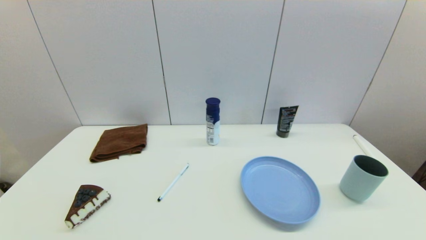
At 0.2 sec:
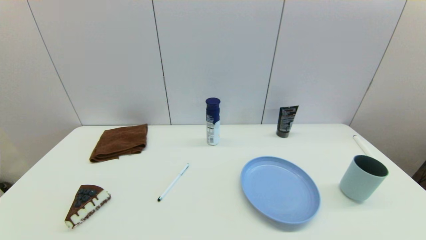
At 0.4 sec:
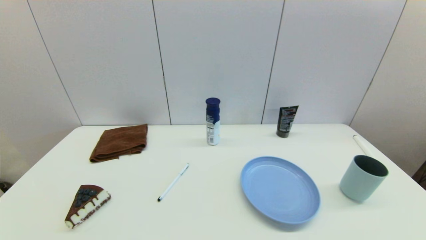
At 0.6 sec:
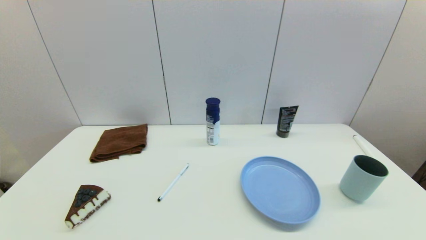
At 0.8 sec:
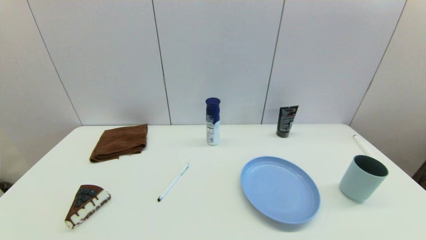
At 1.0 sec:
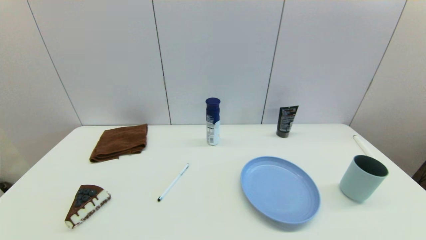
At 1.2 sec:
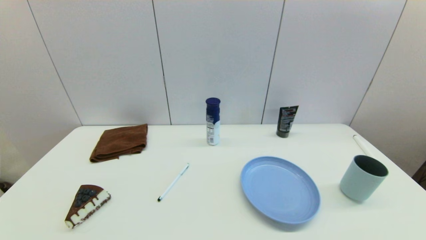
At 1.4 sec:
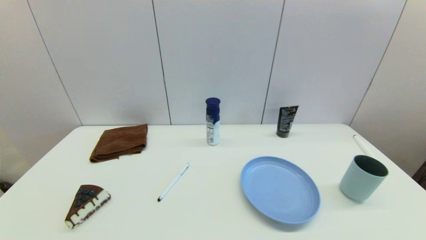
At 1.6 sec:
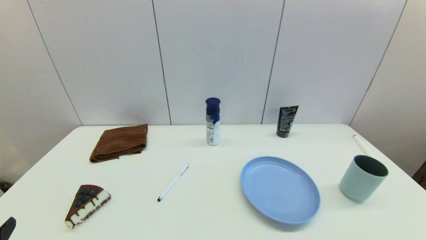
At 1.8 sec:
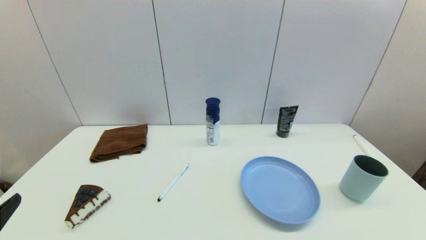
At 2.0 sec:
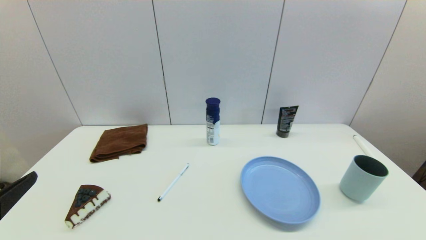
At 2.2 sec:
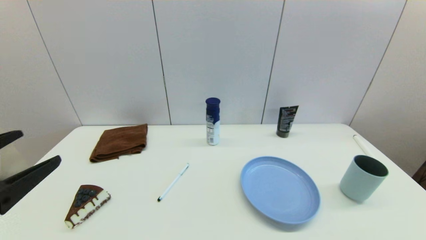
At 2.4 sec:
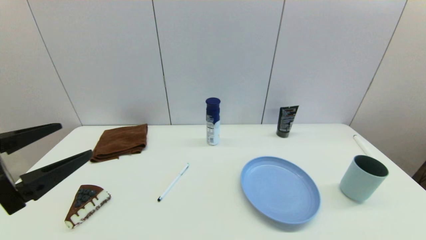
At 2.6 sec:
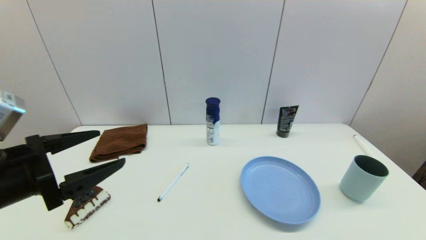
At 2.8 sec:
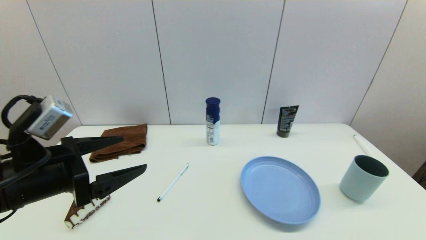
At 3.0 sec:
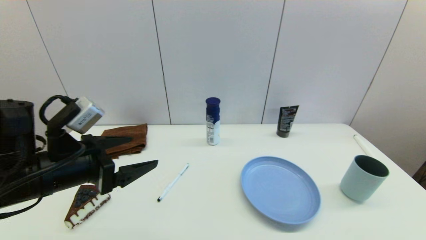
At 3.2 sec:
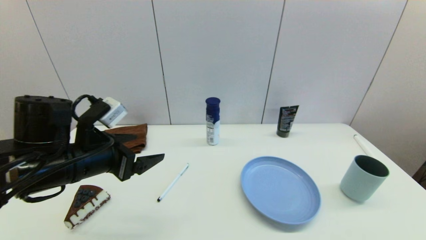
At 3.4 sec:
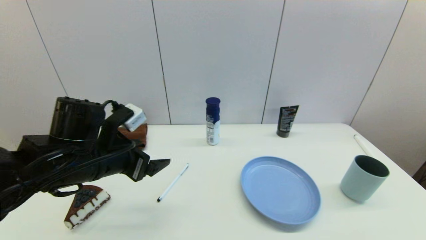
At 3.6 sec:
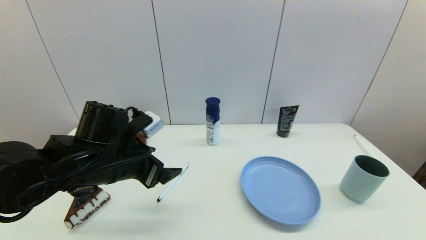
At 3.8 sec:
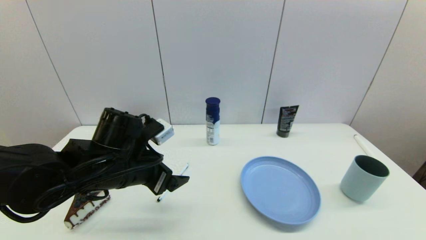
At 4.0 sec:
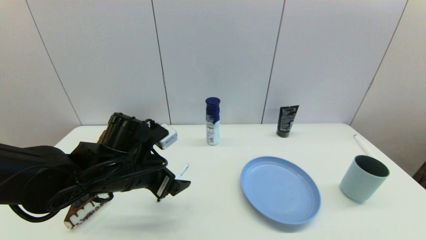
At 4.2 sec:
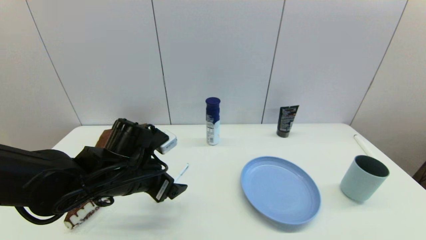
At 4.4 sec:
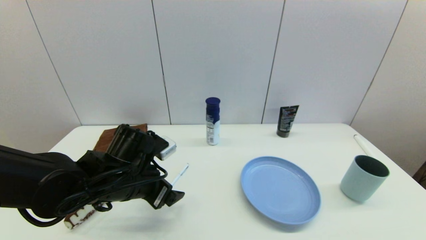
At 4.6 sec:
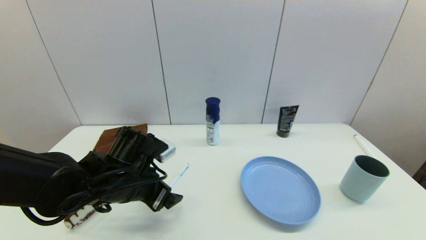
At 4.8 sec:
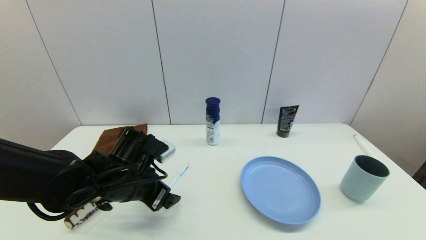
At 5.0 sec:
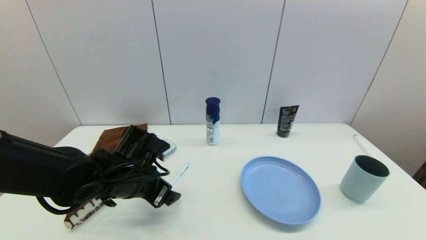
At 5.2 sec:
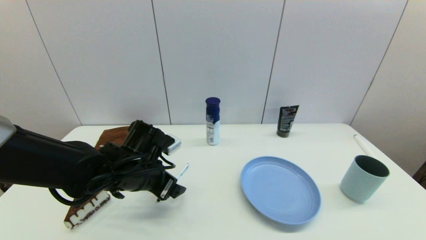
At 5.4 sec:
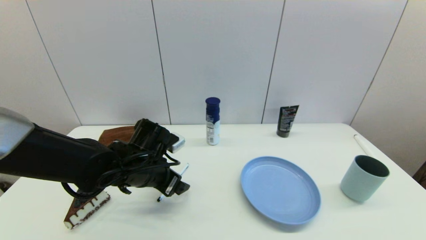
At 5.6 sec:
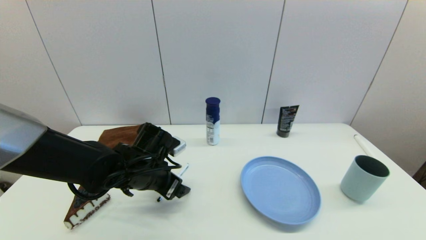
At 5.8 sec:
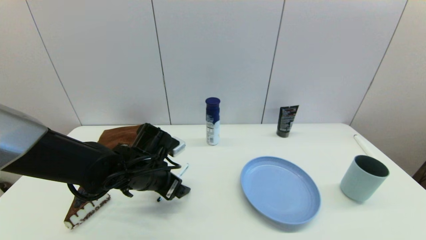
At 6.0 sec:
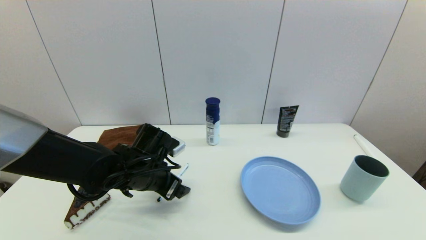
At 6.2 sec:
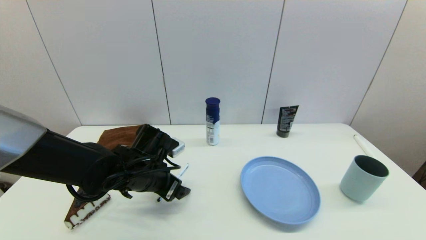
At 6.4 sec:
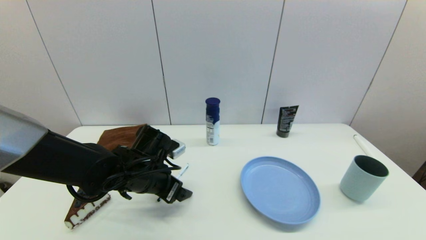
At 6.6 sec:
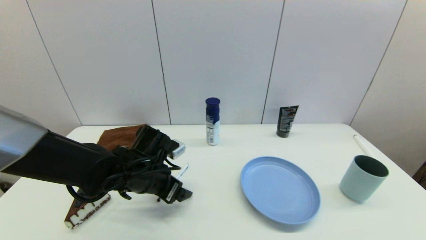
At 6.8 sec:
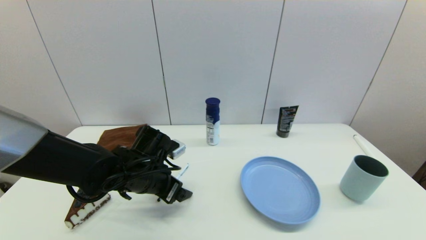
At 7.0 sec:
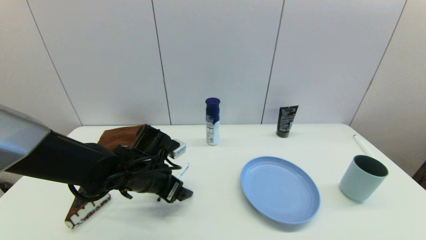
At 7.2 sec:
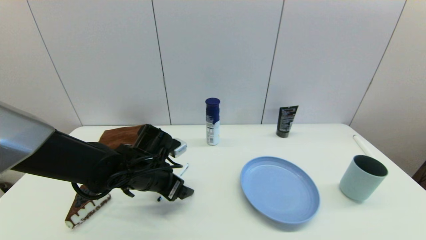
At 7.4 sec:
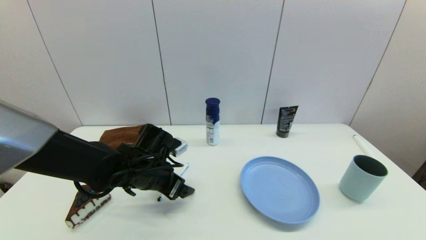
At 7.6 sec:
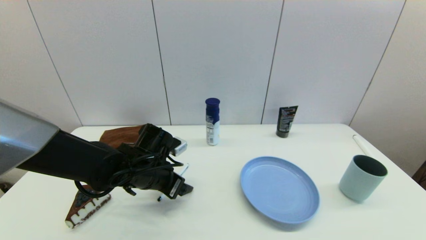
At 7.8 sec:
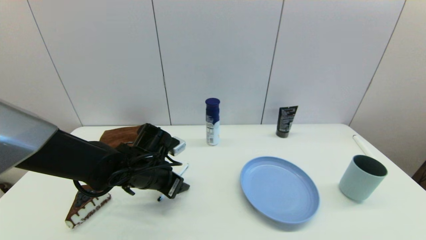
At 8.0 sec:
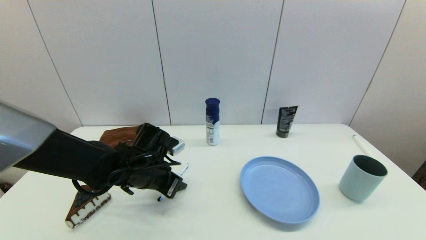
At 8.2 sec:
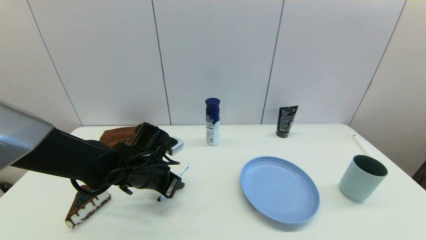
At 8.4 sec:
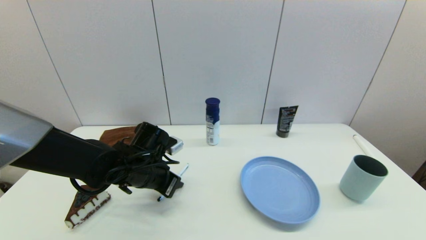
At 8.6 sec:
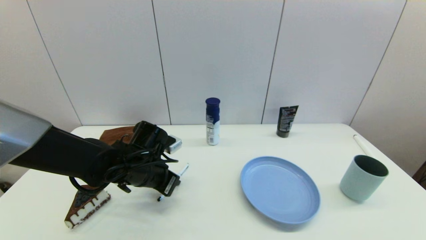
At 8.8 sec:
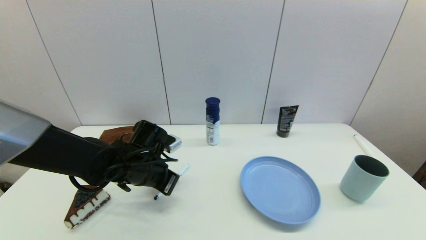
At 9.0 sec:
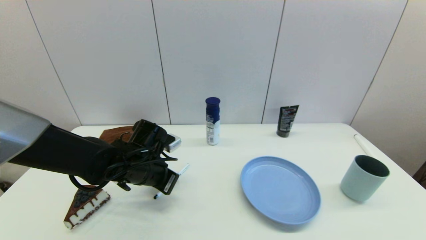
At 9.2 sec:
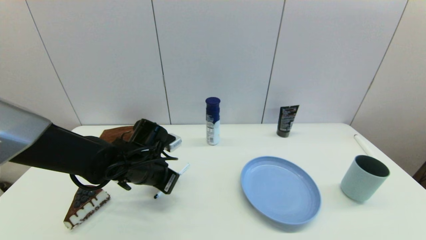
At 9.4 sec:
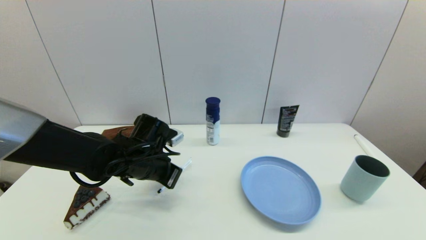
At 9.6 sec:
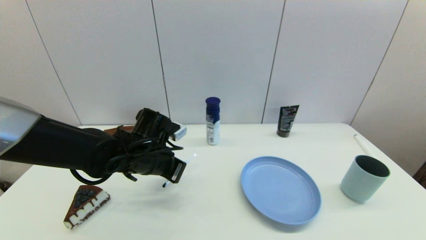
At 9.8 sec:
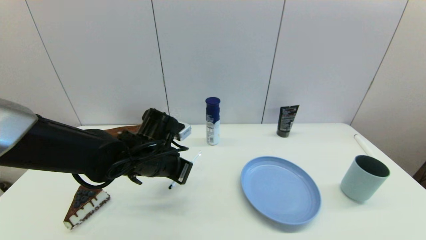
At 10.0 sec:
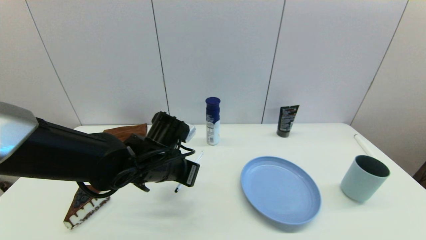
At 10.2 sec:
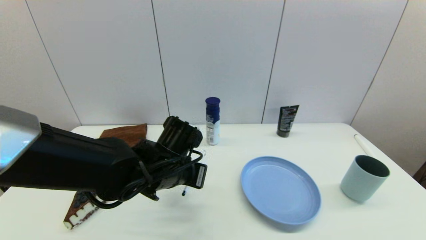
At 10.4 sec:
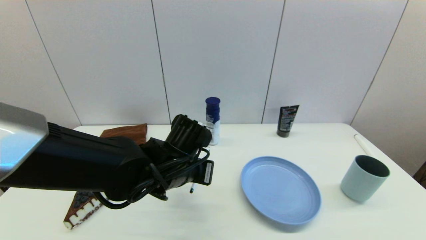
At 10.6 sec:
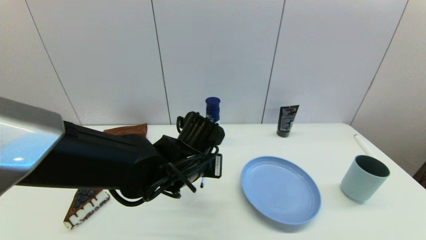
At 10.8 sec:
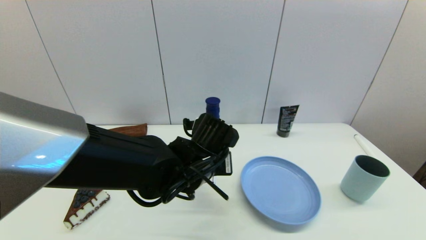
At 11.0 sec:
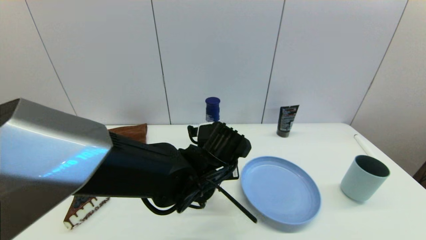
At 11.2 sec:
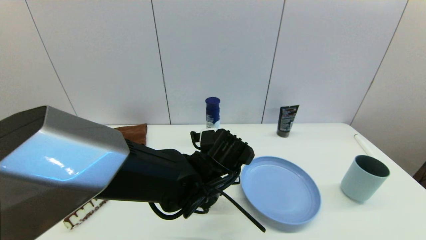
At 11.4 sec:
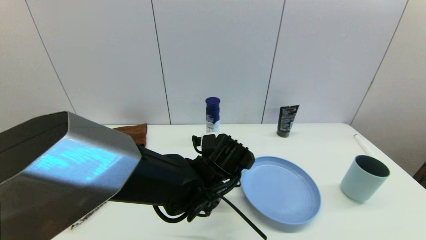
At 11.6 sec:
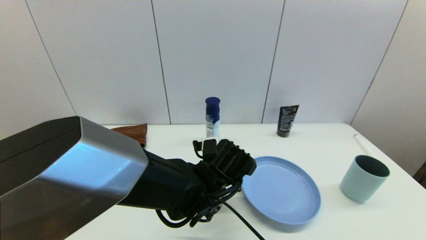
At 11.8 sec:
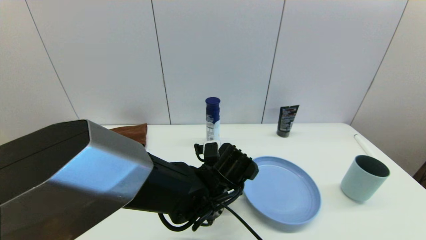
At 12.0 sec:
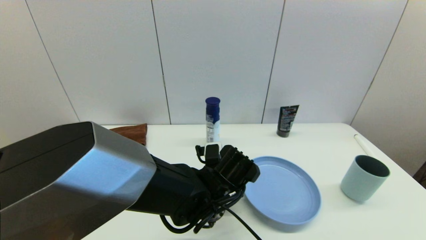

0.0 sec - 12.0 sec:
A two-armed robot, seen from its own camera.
Task of the whole recording: put the pen in the designated position.
Step, 1.6 sec - 8.8 sec: Grasp the sign pen with left gripper.
1.6 sec - 3.0 sec: The left gripper is displaced forward and to the right by some 20 cm.
3.0 sec - 4.4 sec: The left gripper goes roughly 10 cm downward and to the right.
4.4 sec - 6.0 sec: The left gripper shifts by approximately 5 cm.
6.0 sec - 7.6 sec: The grippers stay close to where they were, moving slightly.
7.6 sec - 9.0 sec: The left gripper closes.
9.0 sec - 10.4 sec: The left gripper is displaced to the right by some 10 cm.
10.4 sec - 12.0 sec: The left gripper shifts some 10 cm to the right and downward.

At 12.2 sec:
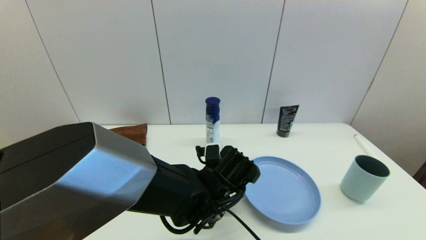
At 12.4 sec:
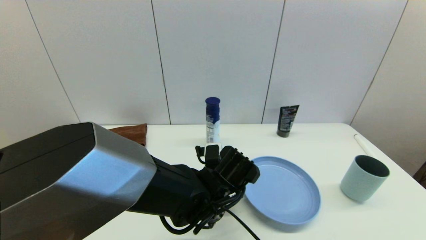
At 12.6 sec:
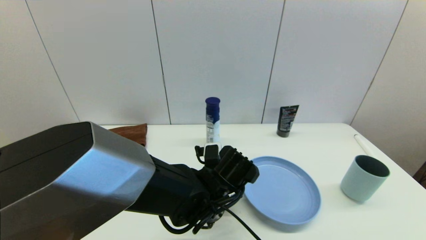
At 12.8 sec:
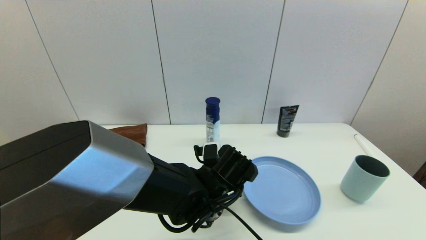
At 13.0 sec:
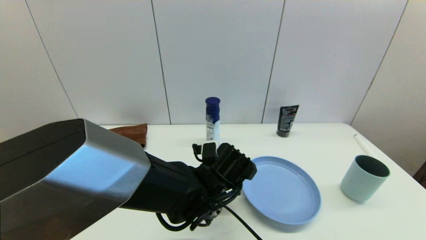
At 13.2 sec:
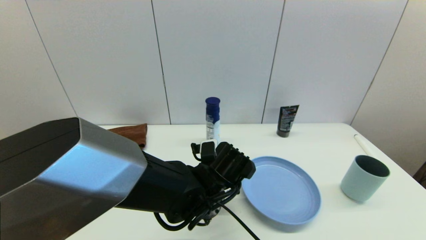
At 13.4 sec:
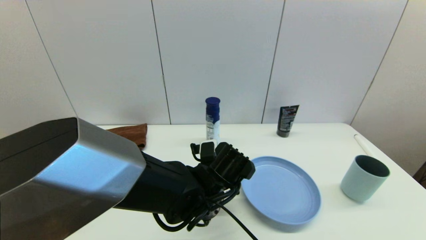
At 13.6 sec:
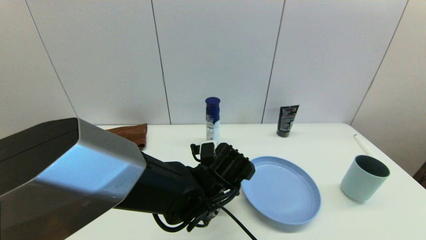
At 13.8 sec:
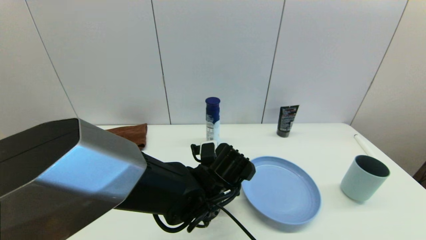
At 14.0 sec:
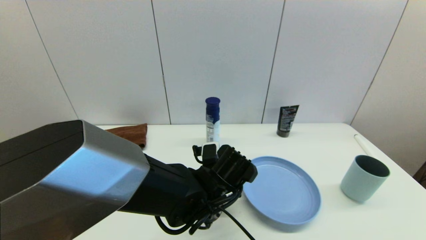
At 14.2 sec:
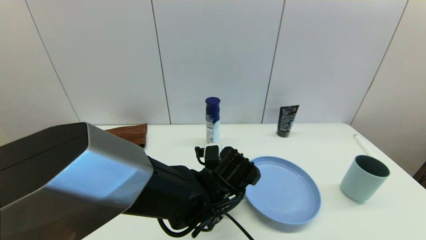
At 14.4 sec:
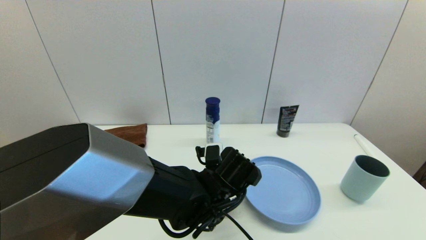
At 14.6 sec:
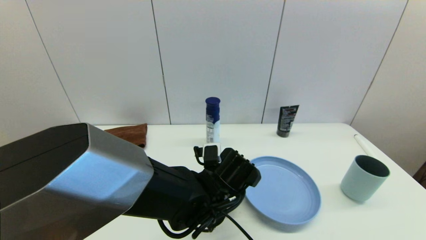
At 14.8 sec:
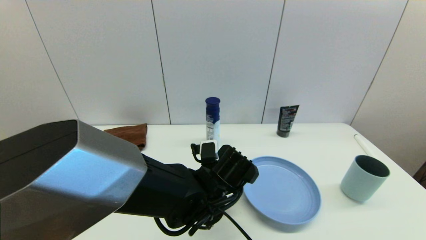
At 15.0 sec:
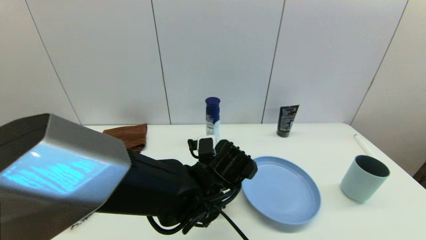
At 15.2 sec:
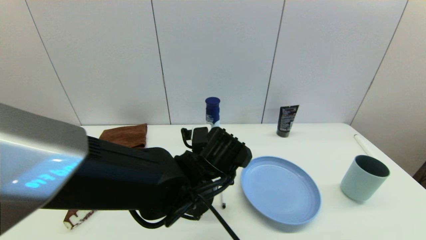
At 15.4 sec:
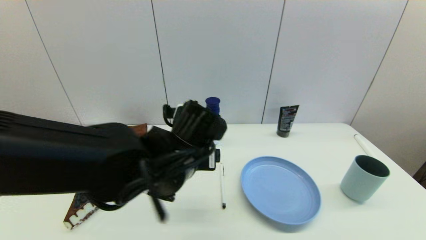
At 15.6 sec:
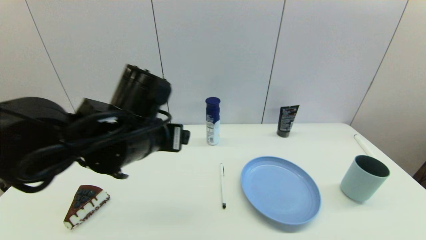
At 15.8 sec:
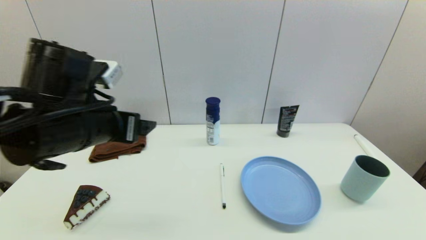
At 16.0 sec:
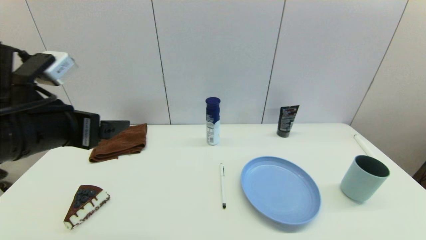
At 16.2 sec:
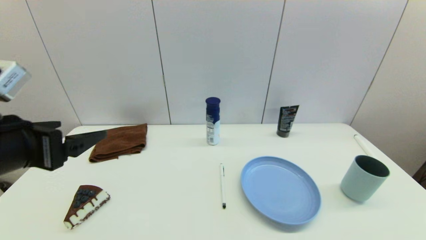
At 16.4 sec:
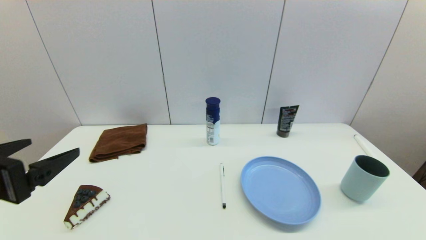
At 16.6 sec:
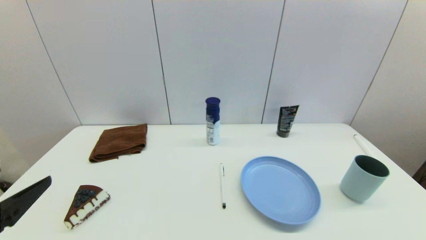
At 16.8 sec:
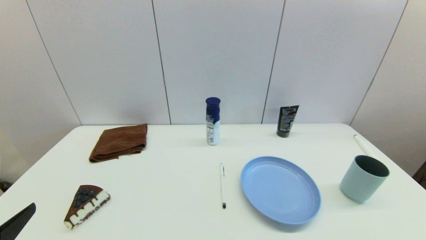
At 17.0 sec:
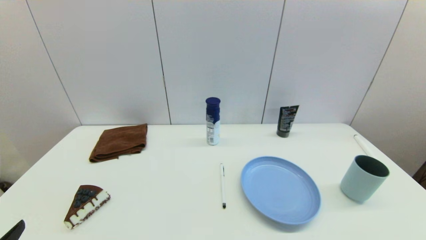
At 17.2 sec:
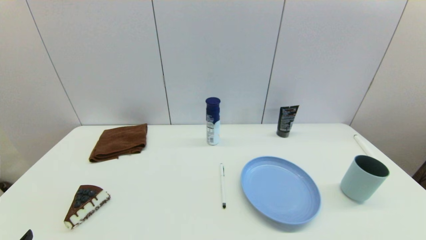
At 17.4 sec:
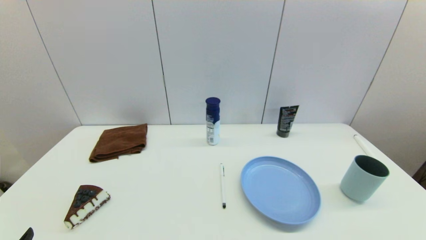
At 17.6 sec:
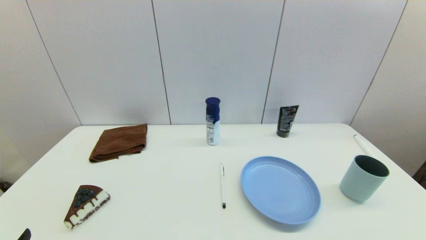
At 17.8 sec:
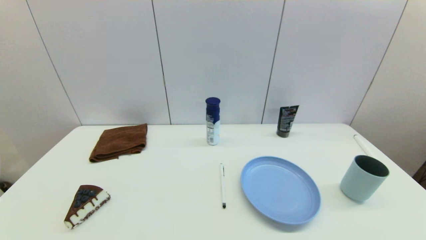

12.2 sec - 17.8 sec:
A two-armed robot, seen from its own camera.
Task of the whole recording: put the pen in the designated position.
Step, 12.2 sec - 14.8 sec: Place the sign pen on the table with left gripper.
12.2 sec - 13.6 sec: Neither gripper changes place.
13.6 sec - 15.0 sec: The left gripper opens.
15.0 sec - 16.4 sec: The left gripper travels to the left, upward and backward by some 35 cm.
16.4 sec - 17.8 sec: The left gripper heads downward and backward, covering some 20 cm.
